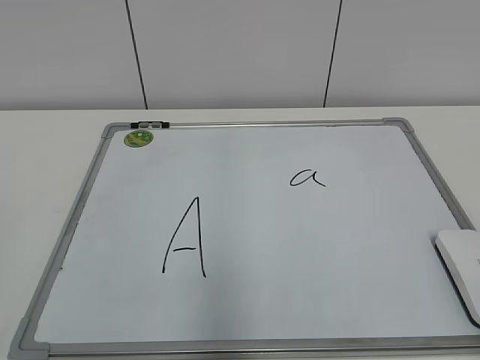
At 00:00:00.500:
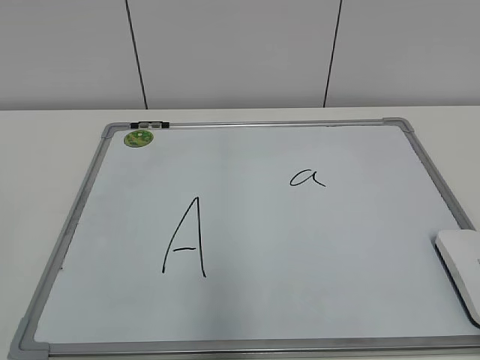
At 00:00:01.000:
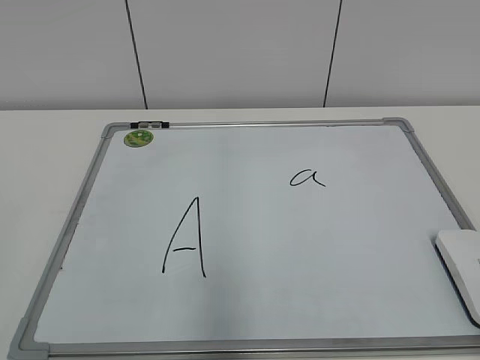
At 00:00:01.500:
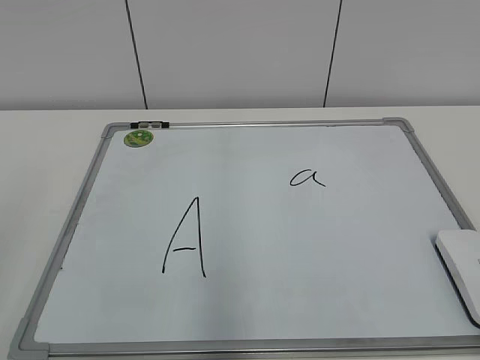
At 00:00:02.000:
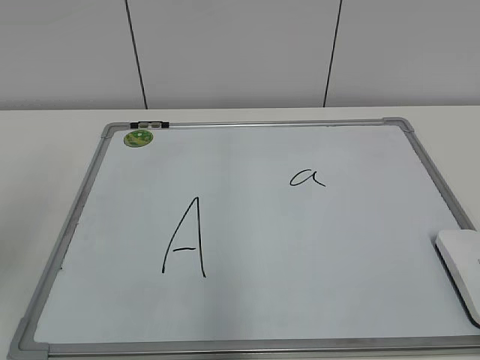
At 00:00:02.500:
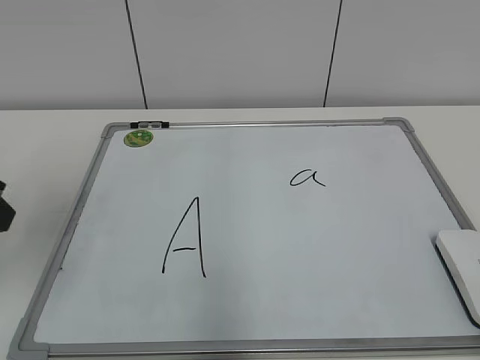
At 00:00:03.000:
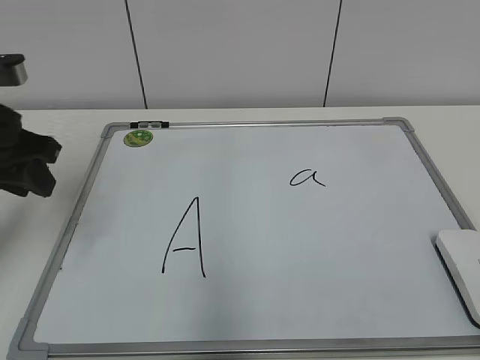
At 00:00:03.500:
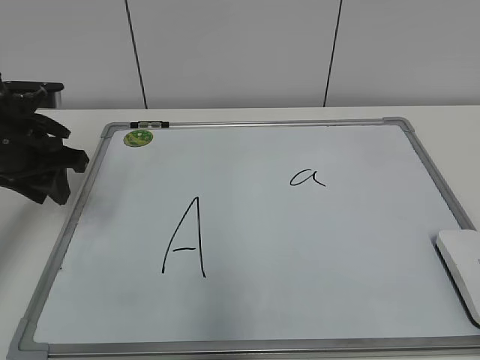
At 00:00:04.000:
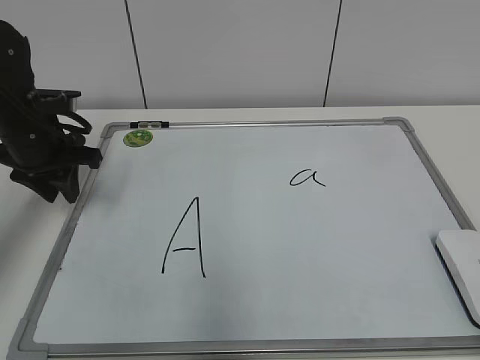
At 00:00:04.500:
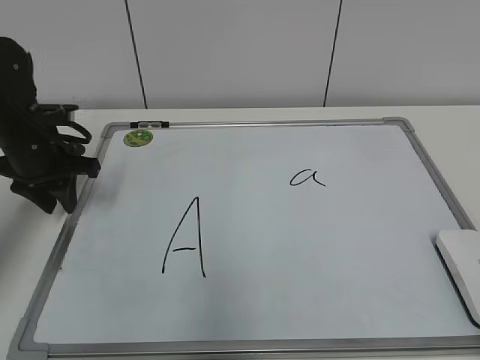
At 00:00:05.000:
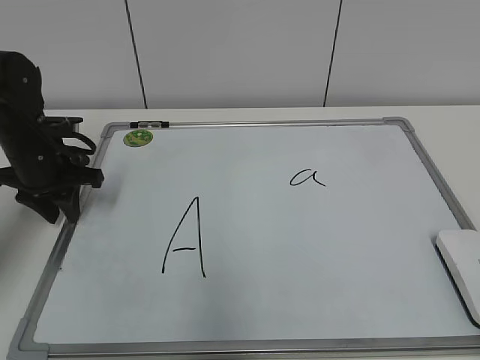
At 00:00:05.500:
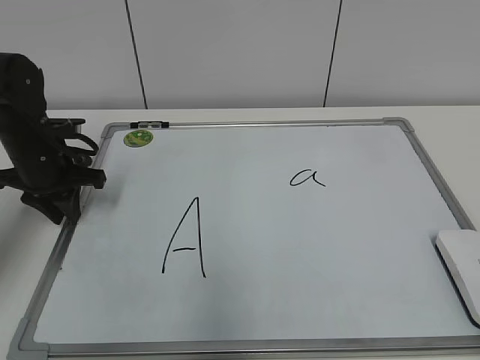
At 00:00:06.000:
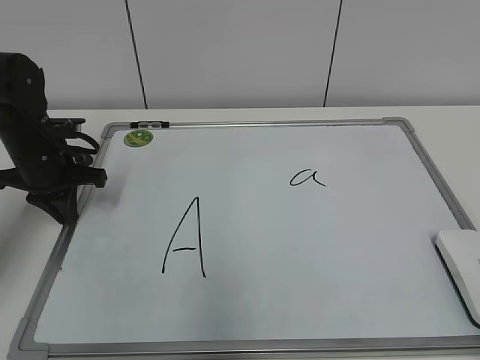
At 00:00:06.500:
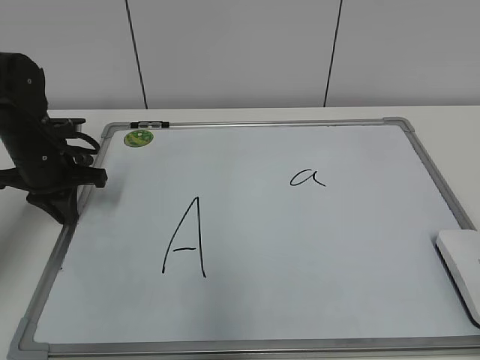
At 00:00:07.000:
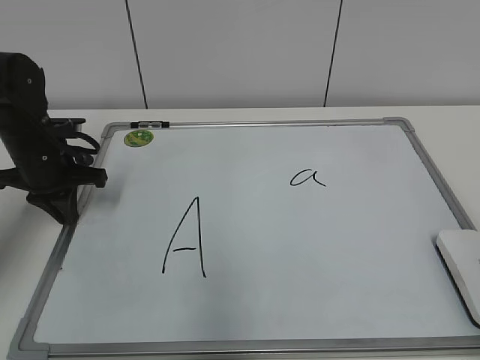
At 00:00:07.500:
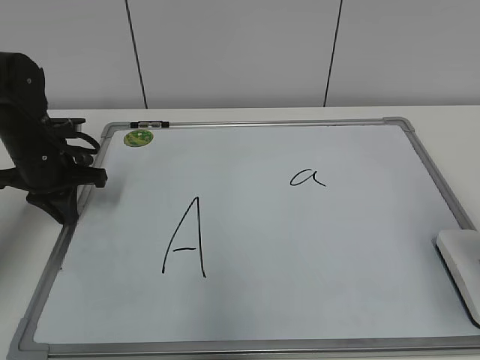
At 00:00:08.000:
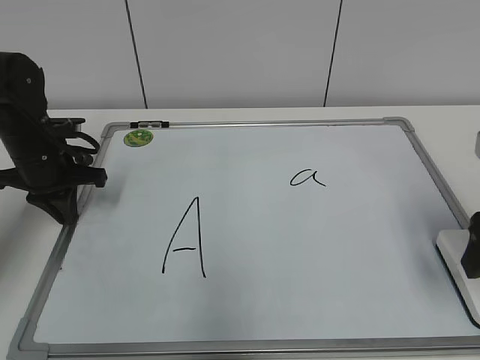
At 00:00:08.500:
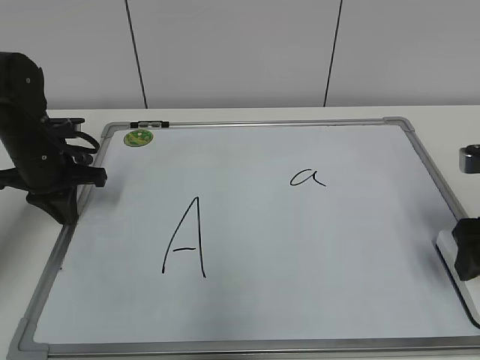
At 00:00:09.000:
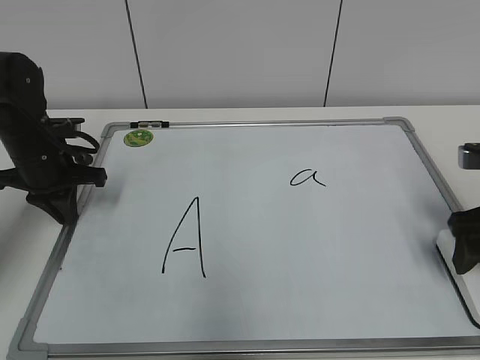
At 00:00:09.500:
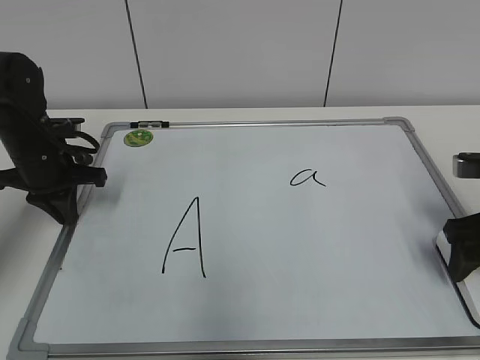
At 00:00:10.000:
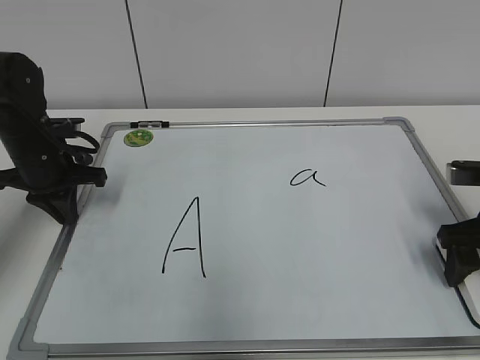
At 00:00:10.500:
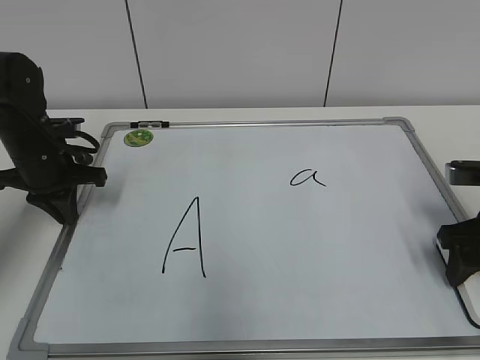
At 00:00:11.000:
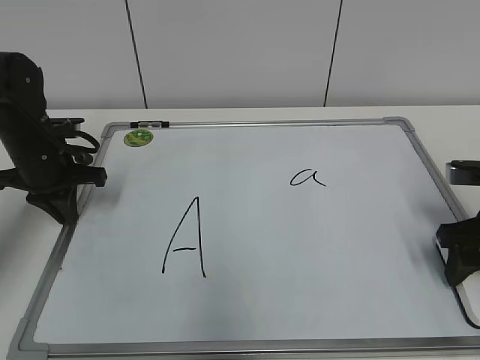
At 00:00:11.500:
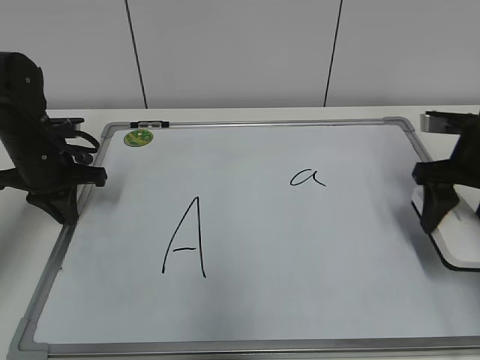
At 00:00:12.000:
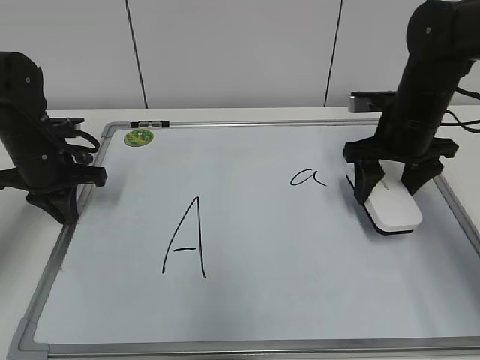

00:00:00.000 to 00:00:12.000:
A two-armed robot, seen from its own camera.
Task of the whole recording: pick up the eraser on the blackboard and erase the letter "a".
Step, 00:00:00.000 to 00:00:05.500: Hold the drawing board steady with your left hand.
Step, 00:00:06.000 to 00:00:10.500: Grab the eraser with your right hand.
00:00:02.000 to 00:00:04.000: The left gripper moves forward and downward, some 25 cm.
00:00:04.000 to 00:00:06.000: The left gripper closes.
00:00:06.000 to 00:00:08.000: The right gripper travels forward by some 25 cm, and opens its fingers.
00:00:08.000 to 00:00:10.000: The right gripper shifts approximately 10 cm downward and forward.
00:00:10.000 to 00:00:12.000: The right gripper is displaced forward and to the left by approximately 15 cm, and closes.

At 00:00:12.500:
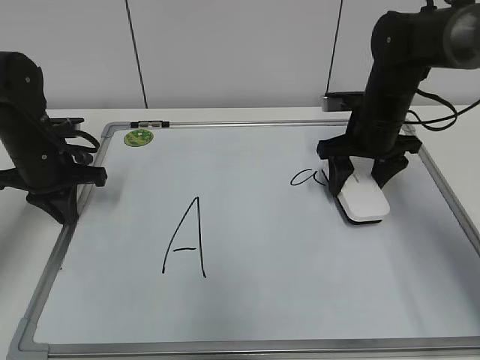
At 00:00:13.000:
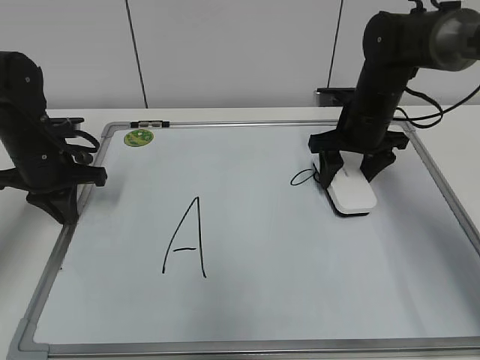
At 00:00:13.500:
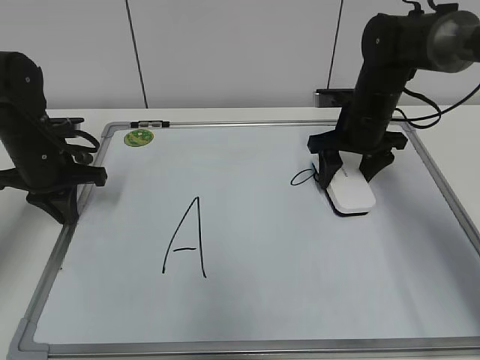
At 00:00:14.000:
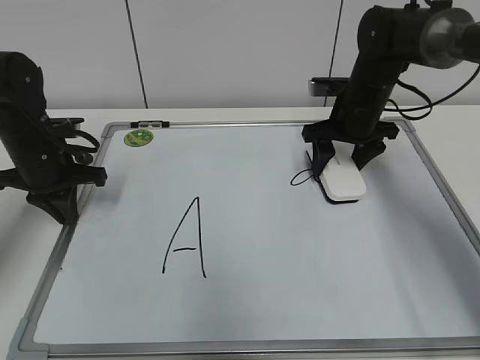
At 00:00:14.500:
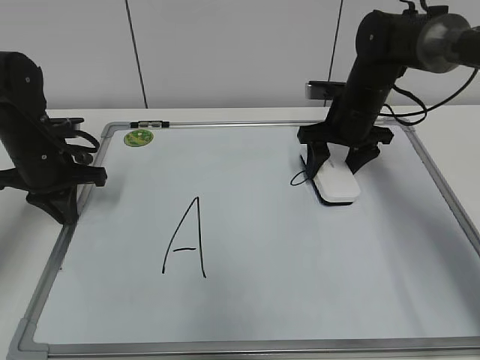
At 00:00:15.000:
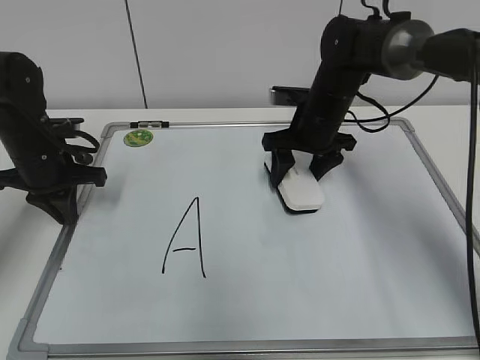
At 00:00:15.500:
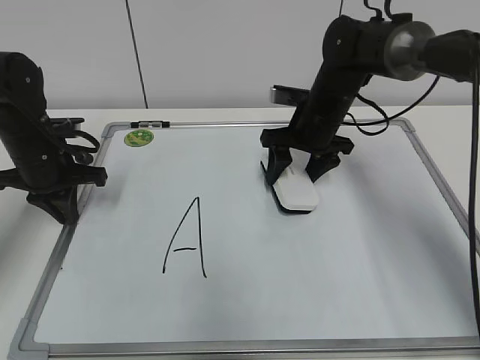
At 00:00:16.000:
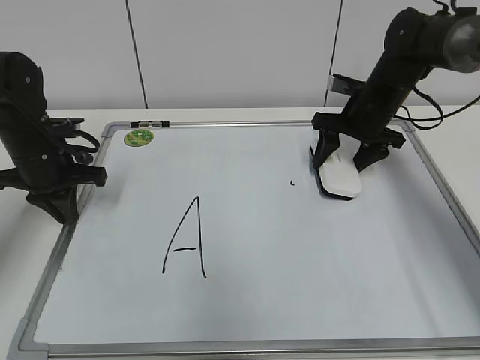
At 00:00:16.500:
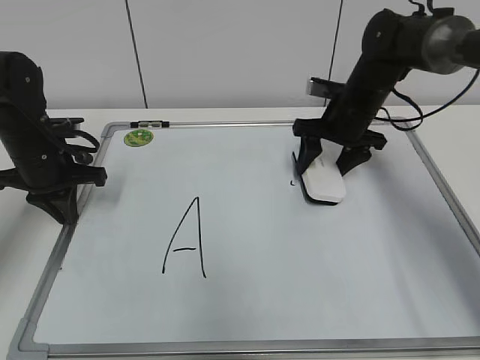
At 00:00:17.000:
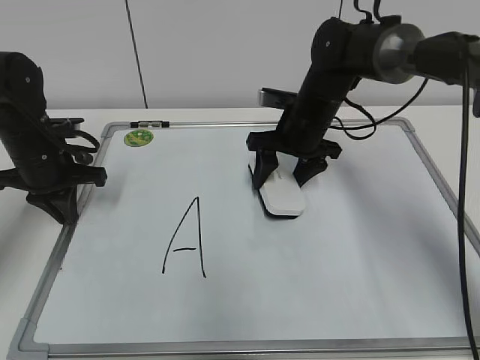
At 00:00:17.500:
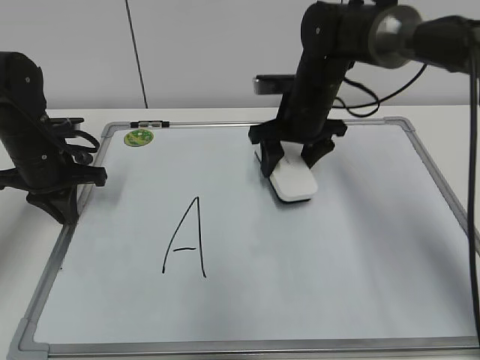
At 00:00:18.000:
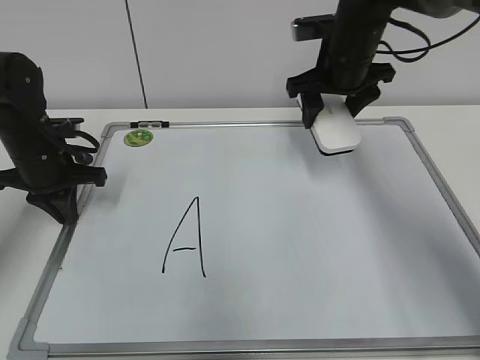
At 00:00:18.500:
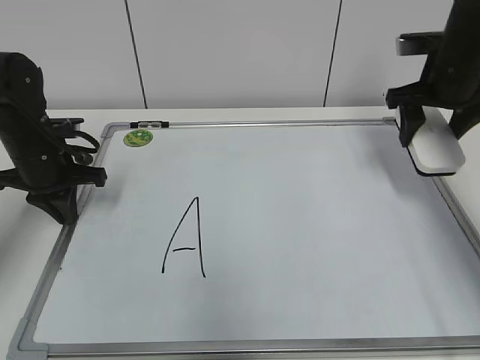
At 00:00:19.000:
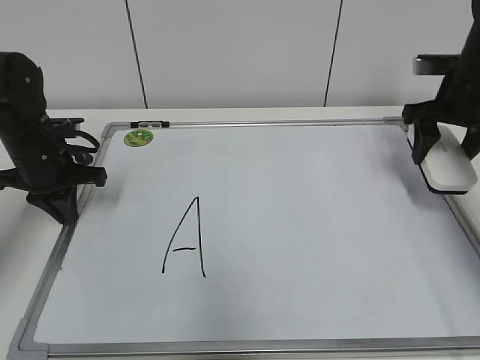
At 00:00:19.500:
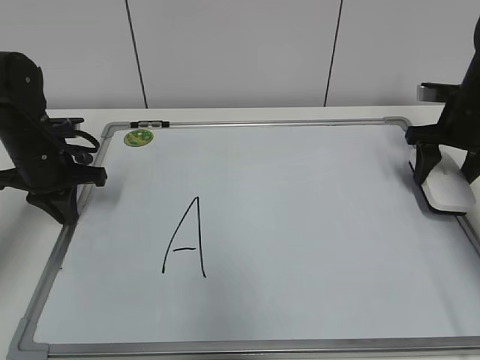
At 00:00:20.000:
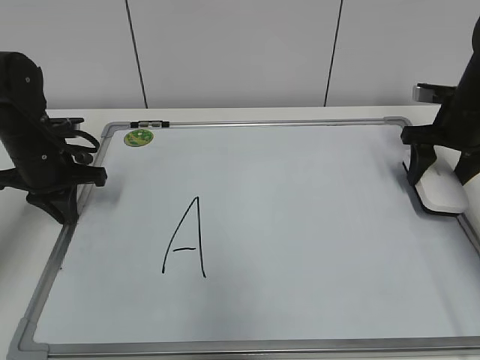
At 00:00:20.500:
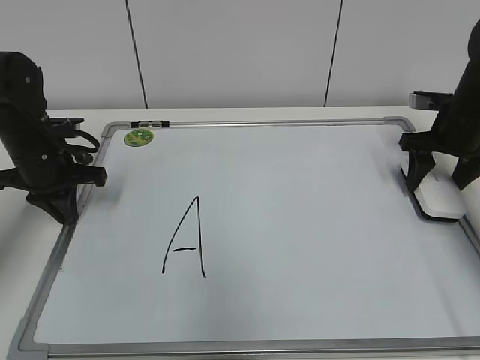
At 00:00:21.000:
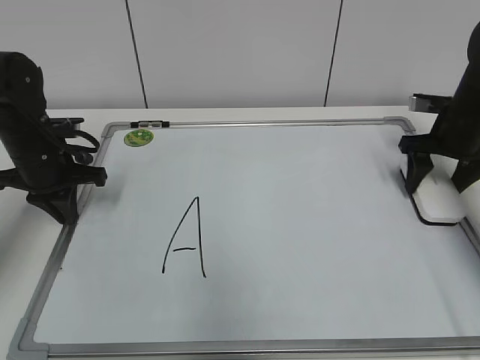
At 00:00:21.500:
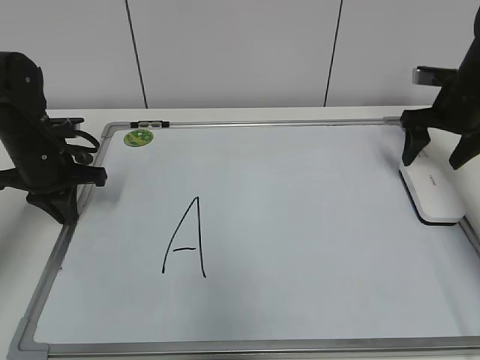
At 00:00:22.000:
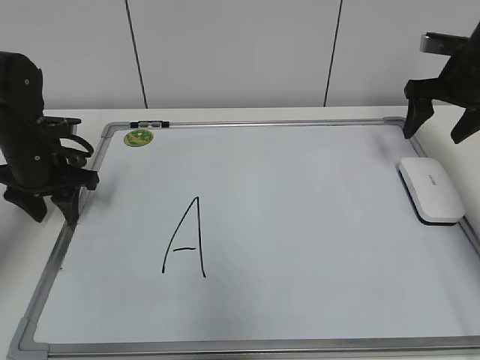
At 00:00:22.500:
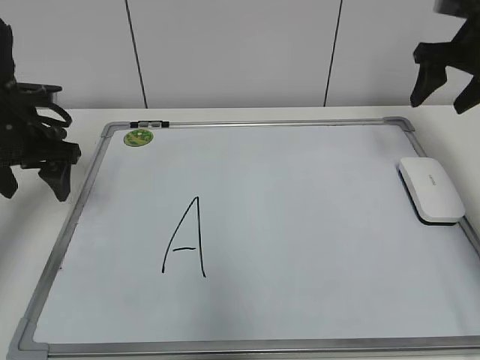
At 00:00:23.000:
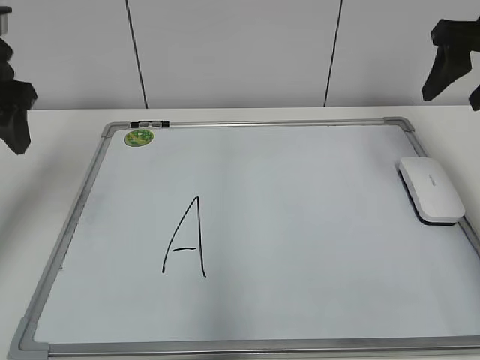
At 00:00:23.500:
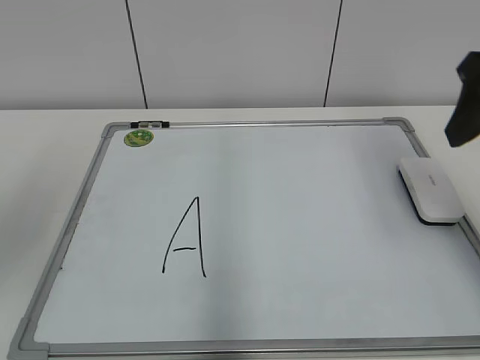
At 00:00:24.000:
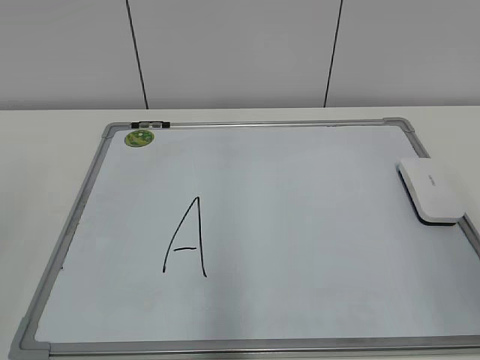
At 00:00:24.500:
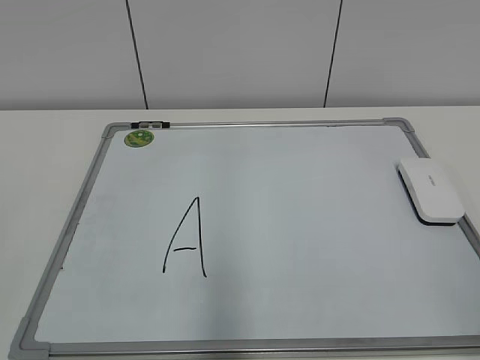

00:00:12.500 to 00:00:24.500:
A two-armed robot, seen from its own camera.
Task of the whole recording: pick up the eraser on the blackboard and erase the letter "a".
Step, 00:00:12.500 to 00:00:17.000: Erase the letter a with your right hand.
Step, 00:00:17.500 to 00:00:21.000: Put down the eraser with your right hand.
00:00:12.500 to 00:00:14.500: There are only small adjustments of the grippers.
00:00:14.500 to 00:00:16.500: The right gripper reaches some 5 cm to the left, then returns.
00:00:16.500 to 00:00:18.500: The right gripper heads to the right and upward, covering some 10 cm.
00:00:18.500 to 00:00:20.500: The right gripper moves downward and to the right, about 10 cm.
00:00:20.500 to 00:00:22.500: The right gripper heads upward, covering some 10 cm, and opens and closes again. The left gripper shifts approximately 5 cm upward, and opens its fingers.
00:00:22.500 to 00:00:24.500: Both grippers travel together backward, roughly 40 cm.

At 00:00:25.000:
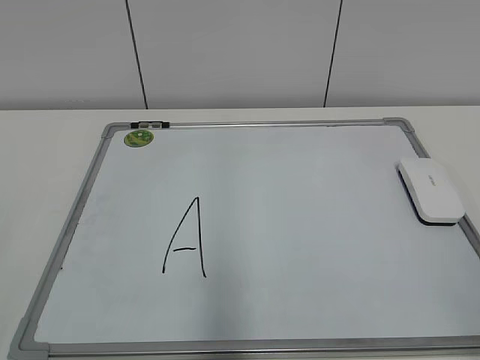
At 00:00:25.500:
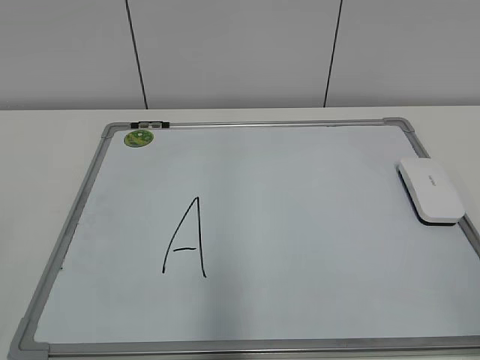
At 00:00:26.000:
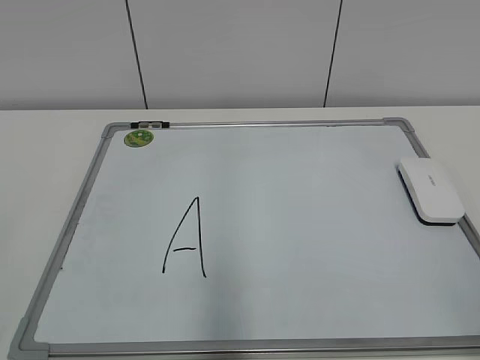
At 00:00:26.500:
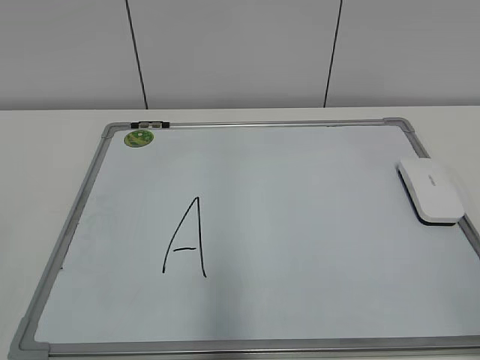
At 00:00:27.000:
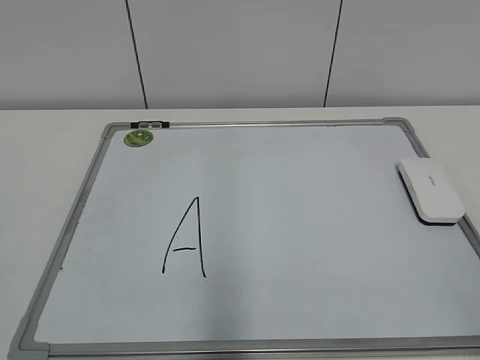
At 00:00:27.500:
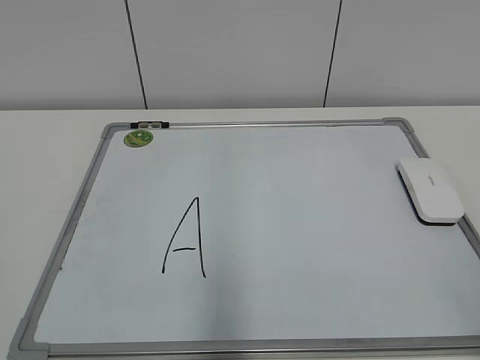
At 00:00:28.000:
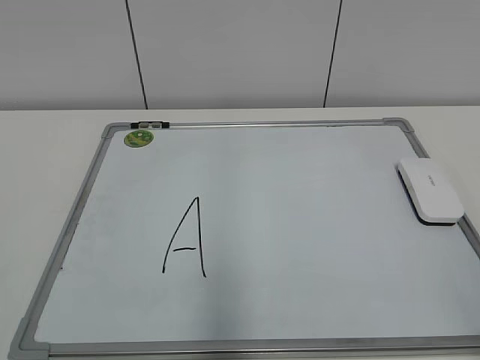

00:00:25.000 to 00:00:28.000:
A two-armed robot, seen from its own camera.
Task of the whole recording: pick up the eraser on the blackboard and erase the letter "a".
00:00:25.000 to 00:00:26.500: The two grippers keep their place.
